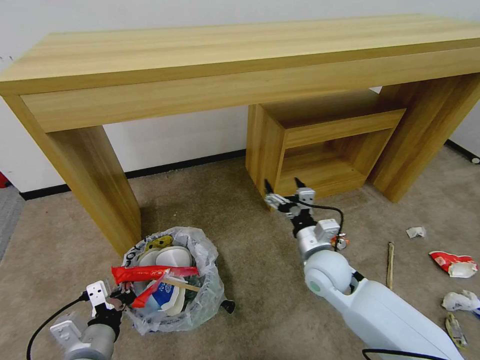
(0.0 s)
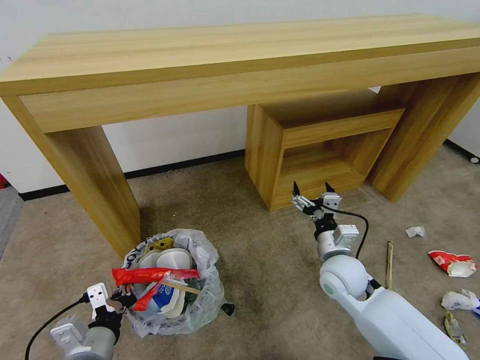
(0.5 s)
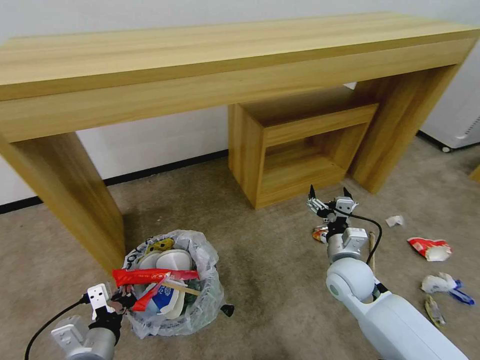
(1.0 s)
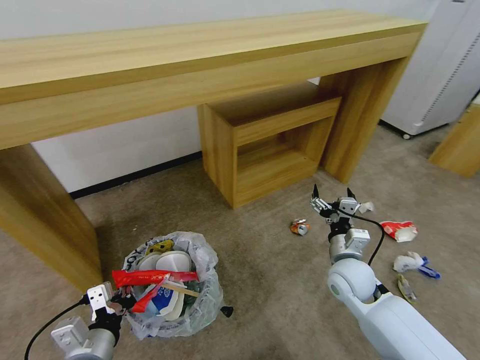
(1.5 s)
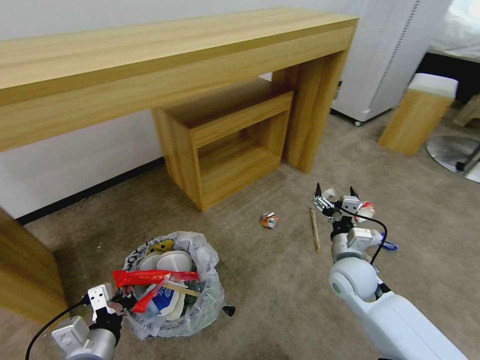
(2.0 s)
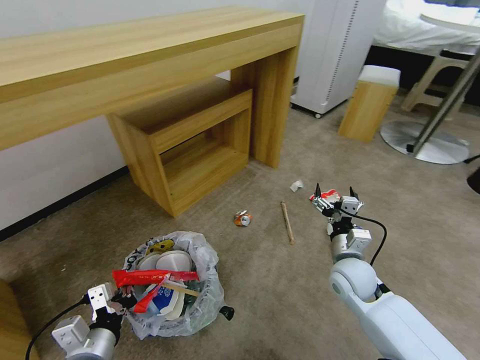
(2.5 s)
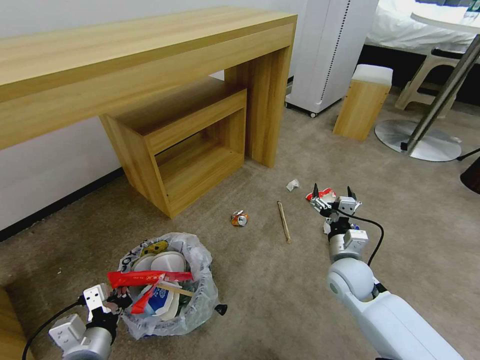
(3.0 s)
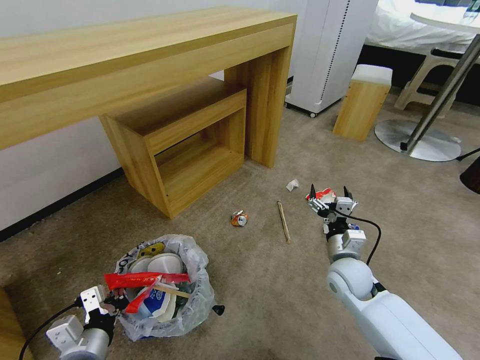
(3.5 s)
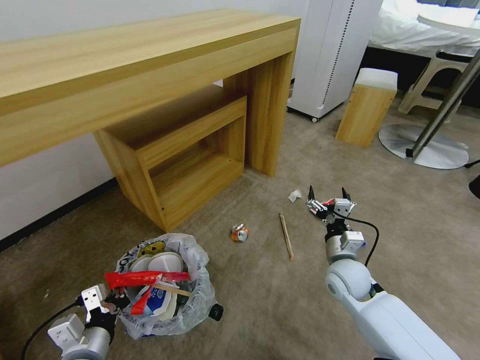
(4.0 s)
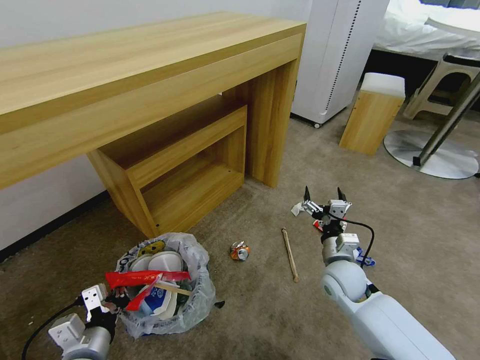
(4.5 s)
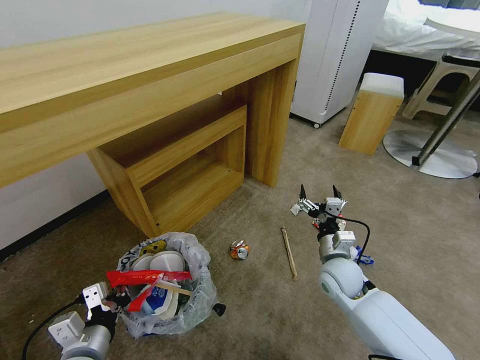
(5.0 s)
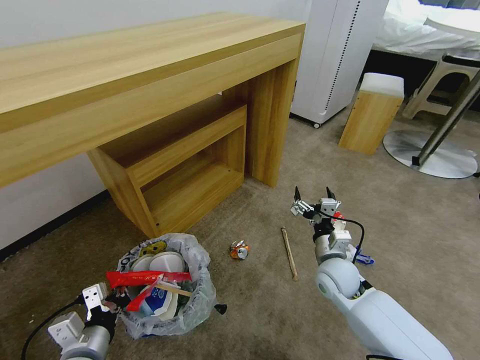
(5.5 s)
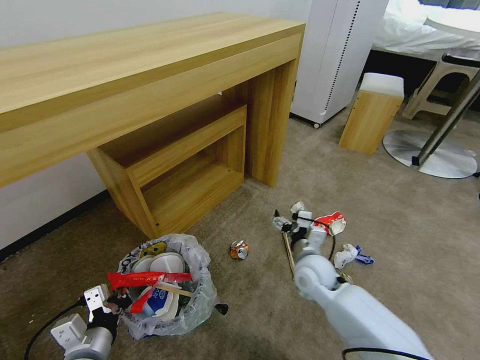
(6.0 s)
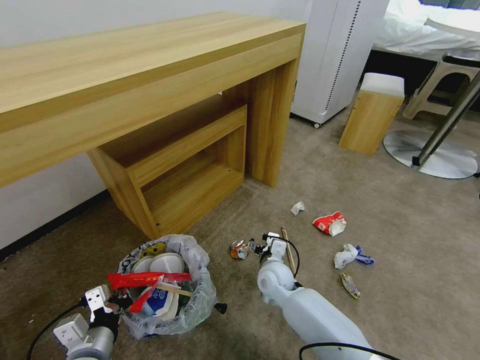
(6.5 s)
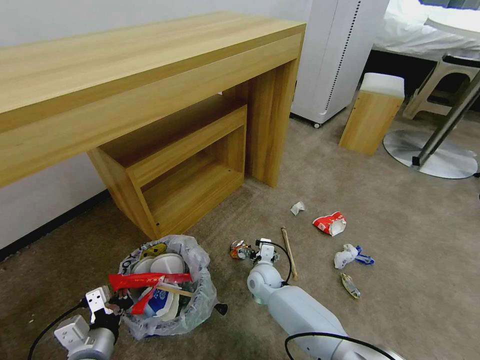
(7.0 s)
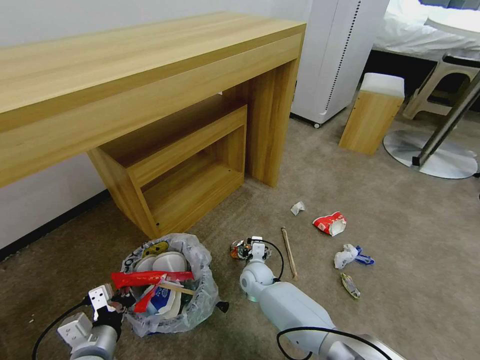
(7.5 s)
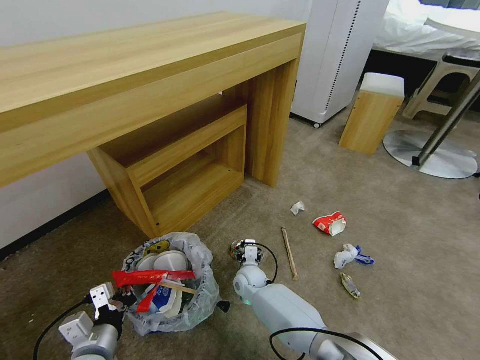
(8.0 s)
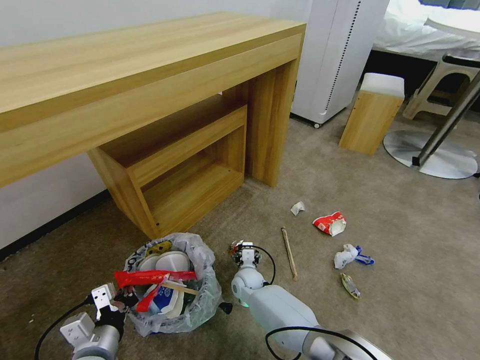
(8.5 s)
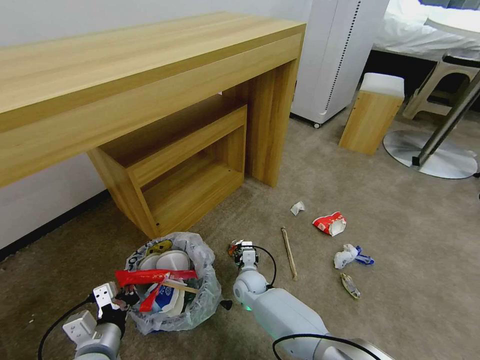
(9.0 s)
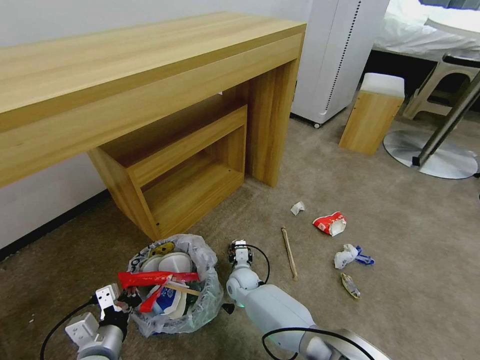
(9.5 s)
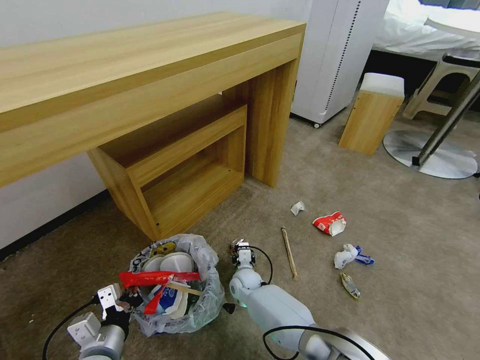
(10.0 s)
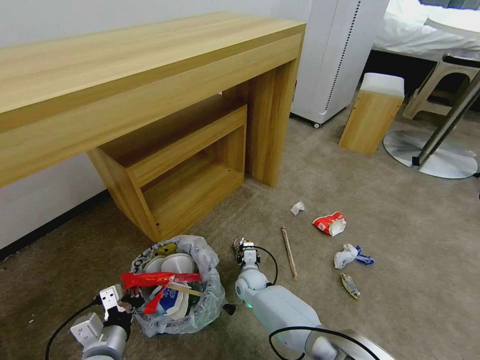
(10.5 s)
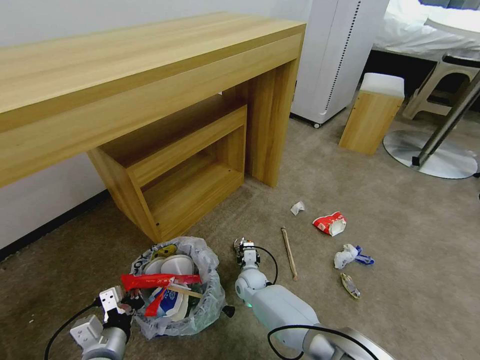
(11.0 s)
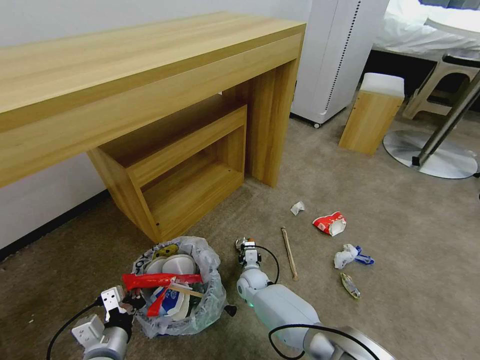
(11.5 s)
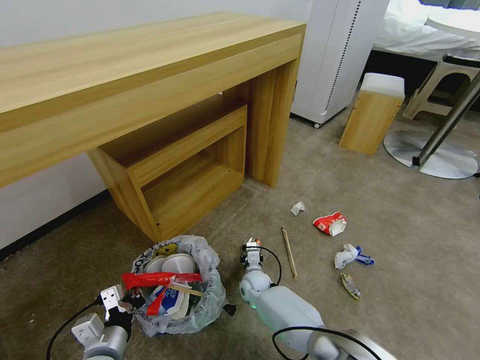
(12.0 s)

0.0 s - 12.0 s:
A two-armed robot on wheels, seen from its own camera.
Task of the whole recording: Pick up the trash bin and place the garbage on the floor into it.
0.0 s - 2.0 s: The right gripper moves to the right, roughly 5 cm.
4.0 s - 6.0 s: The right gripper travels to the left by roughly 10 cm.
6.0 s - 8.0 s: The right gripper travels to the left and downward by roughly 20 cm.
8.0 s - 10.0 s: There are only small adjustments of the grippers.
10.0 s - 12.0 s: The right gripper closes its fingers.

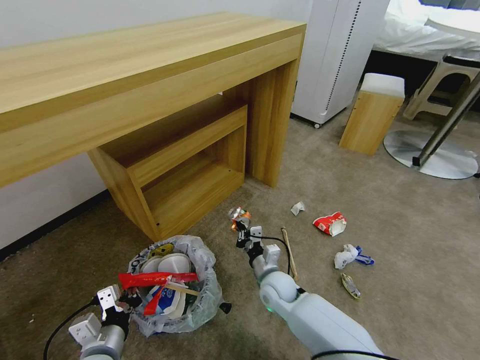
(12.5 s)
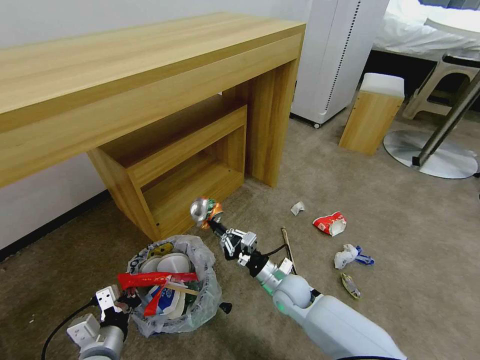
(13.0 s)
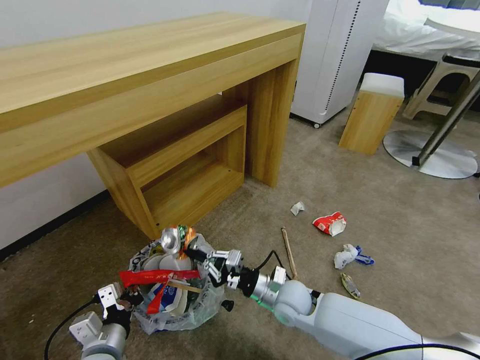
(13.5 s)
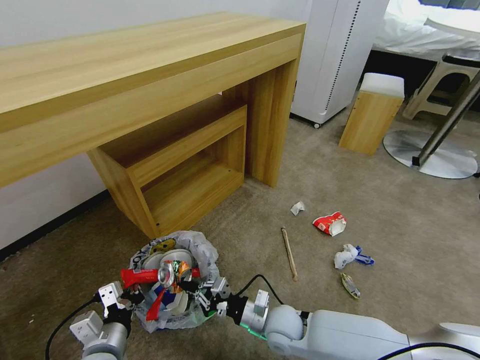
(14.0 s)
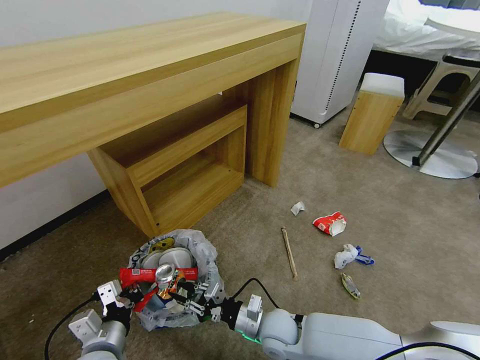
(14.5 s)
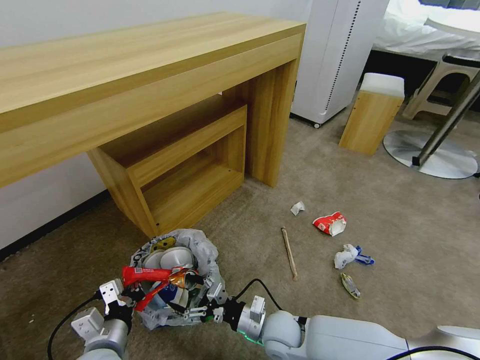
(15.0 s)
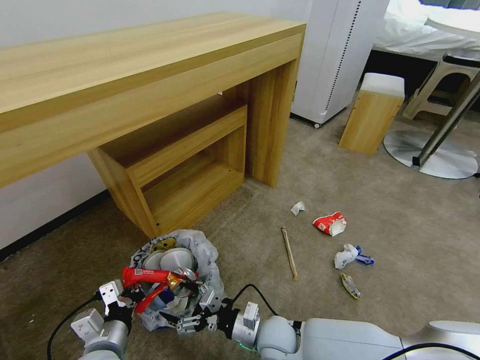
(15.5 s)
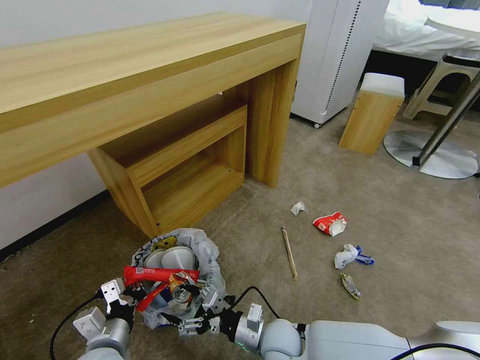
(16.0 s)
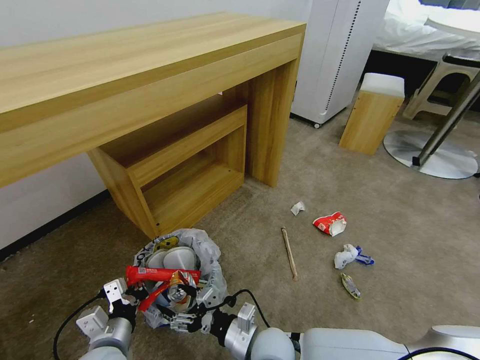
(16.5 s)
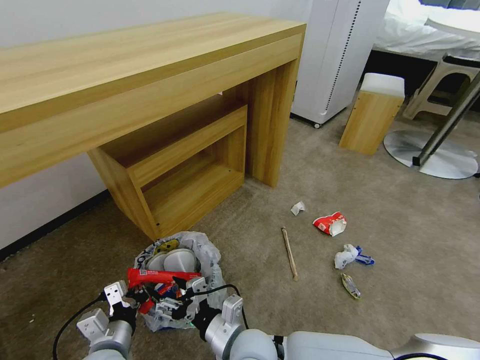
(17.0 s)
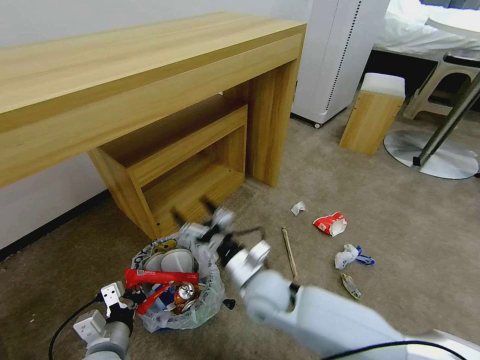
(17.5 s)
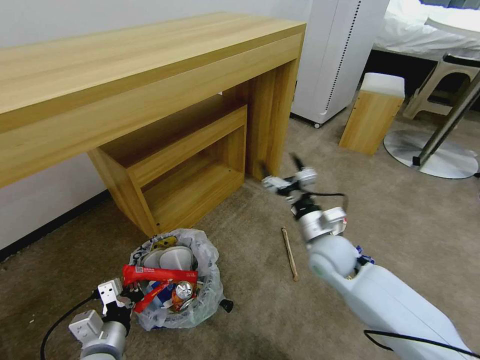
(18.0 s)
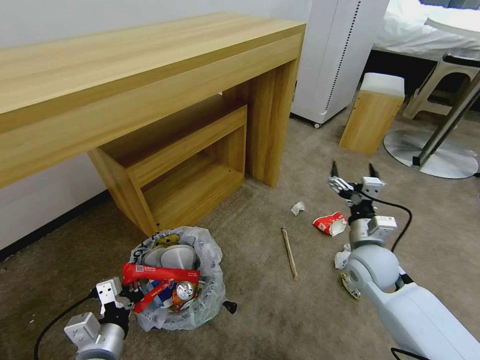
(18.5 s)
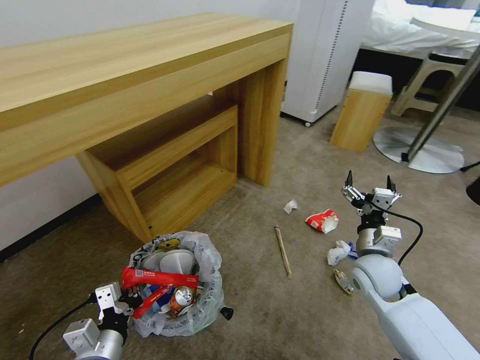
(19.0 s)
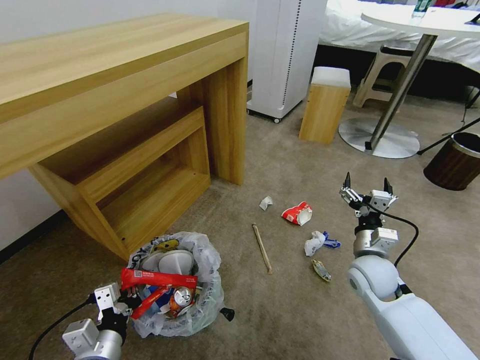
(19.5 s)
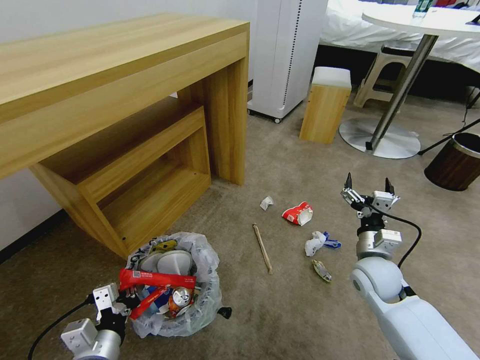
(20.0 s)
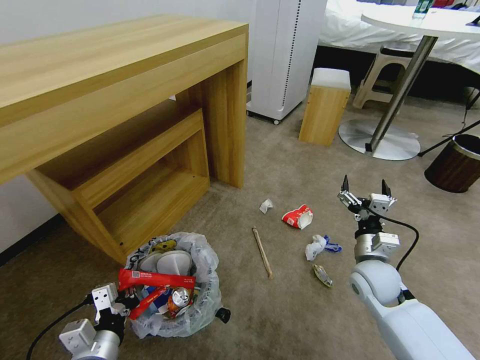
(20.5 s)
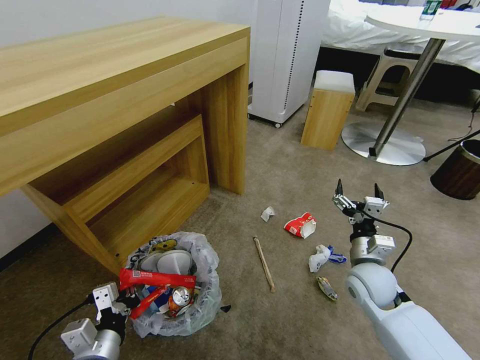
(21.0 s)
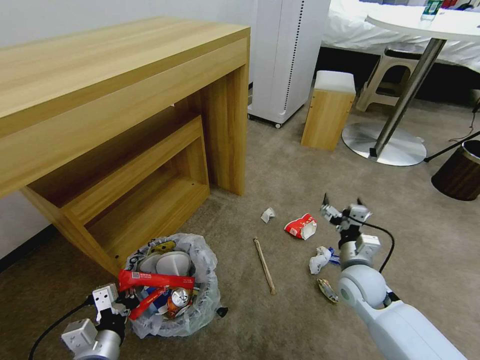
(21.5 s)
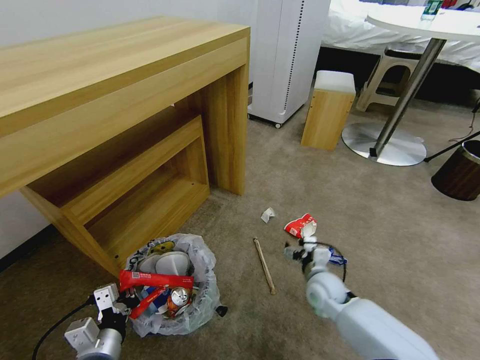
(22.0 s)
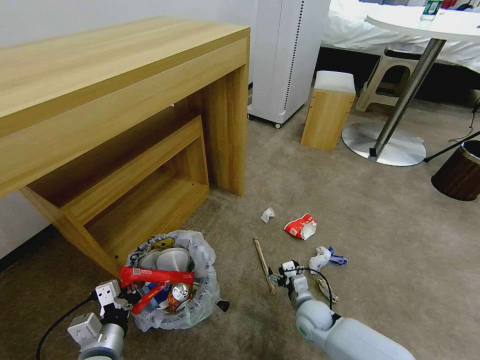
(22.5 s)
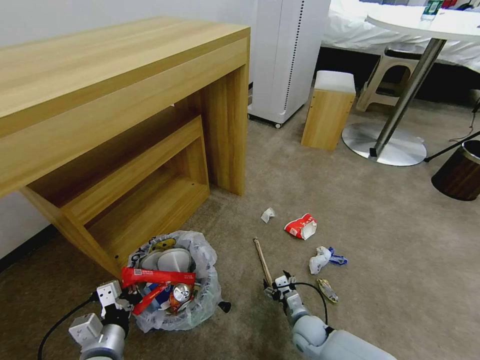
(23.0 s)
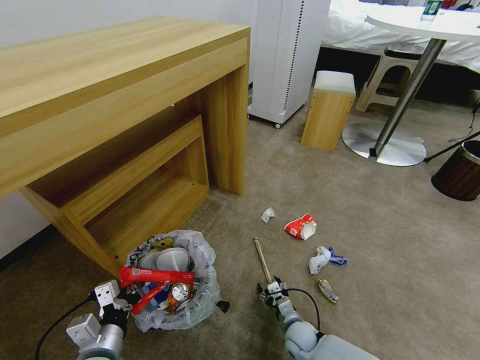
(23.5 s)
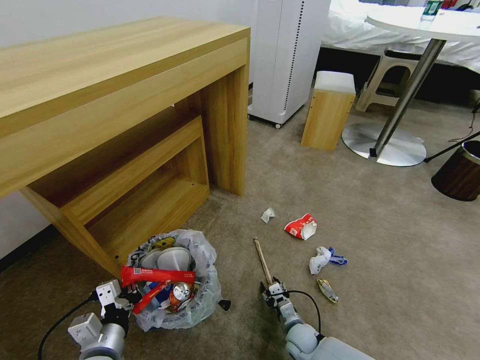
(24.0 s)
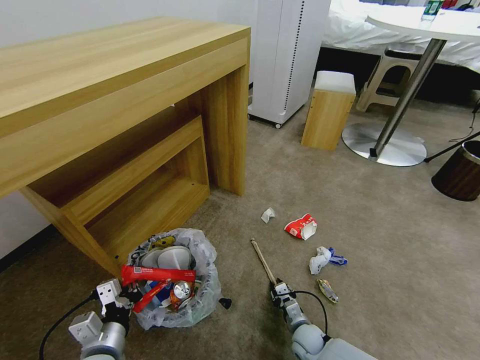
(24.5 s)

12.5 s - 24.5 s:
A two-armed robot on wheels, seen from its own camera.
Task of the whole recording: Pick up the trash bin and place the garbage on the floor into it.
12.5 s - 14.5 s: The right gripper travels backward by approximately 10 cm.
14.5 s - 16.5 s: The right gripper shifts some 5 cm backward, and opens its fingers.
16.5 s - 18.5 s: The right gripper heads to the right, forward and upward, covering roughly 30 cm.
20.5 s - 22.5 s: The right gripper goes roughly 20 cm downward and to the left.
22.5 s - 24.5 s: The right gripper travels downward by some 10 cm, and closes.

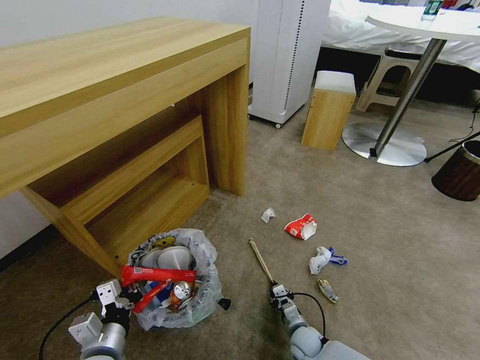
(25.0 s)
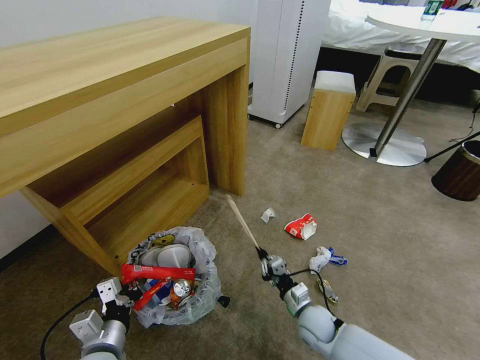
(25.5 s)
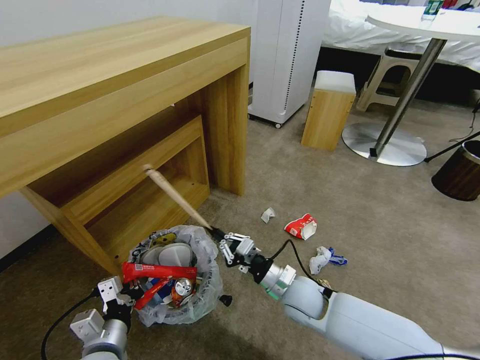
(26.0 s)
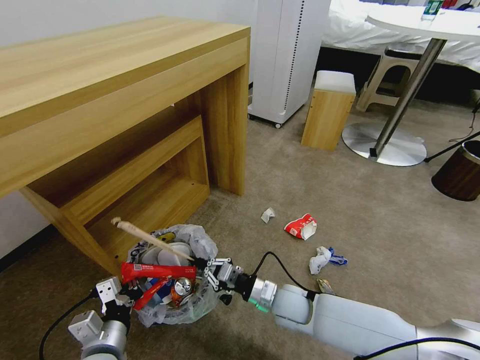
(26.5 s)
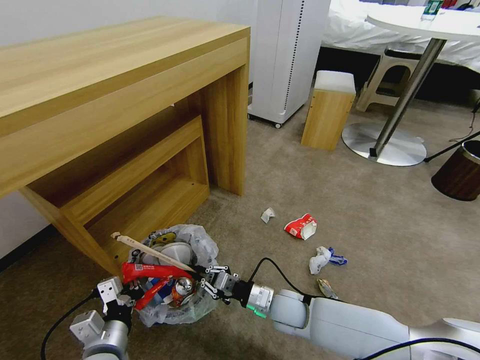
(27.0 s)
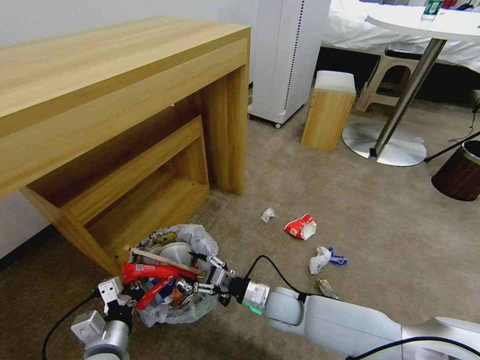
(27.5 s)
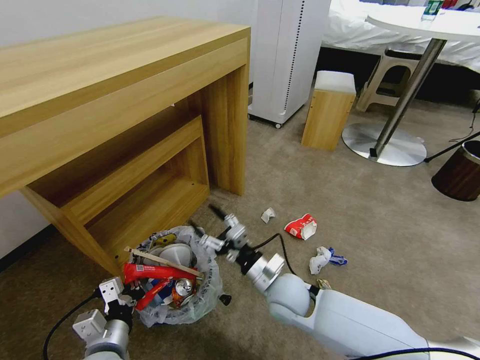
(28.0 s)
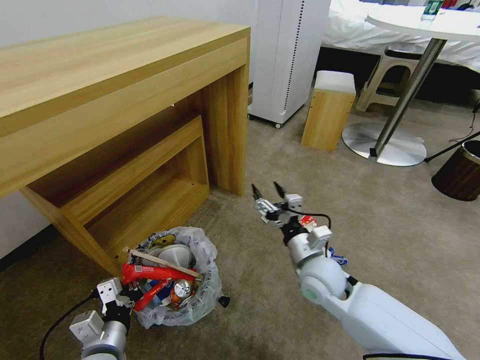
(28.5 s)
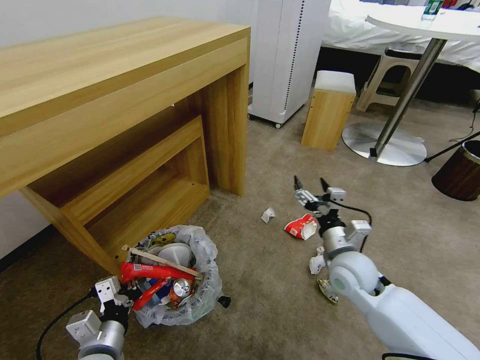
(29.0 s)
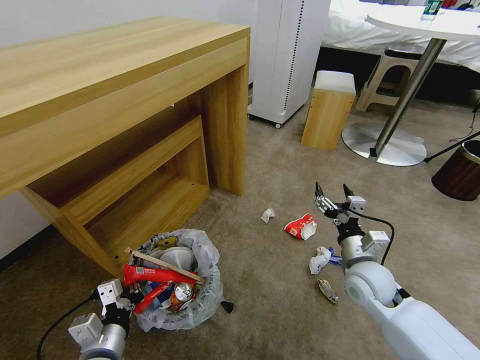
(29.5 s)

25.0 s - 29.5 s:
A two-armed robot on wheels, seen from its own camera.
Task of the whole recording: Pick up the trash bin and place the garbage on the floor into it.
25.0 s - 27.0 s: The right gripper moves upward and to the left, roughly 15 cm.
27.0 s - 29.5 s: The right gripper heads to the right and upward, covering roughly 20 cm, and opens.
